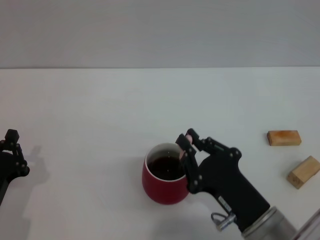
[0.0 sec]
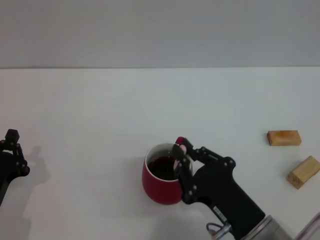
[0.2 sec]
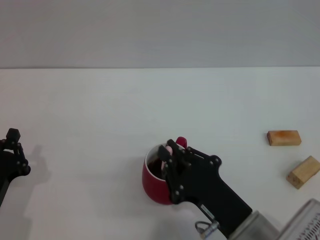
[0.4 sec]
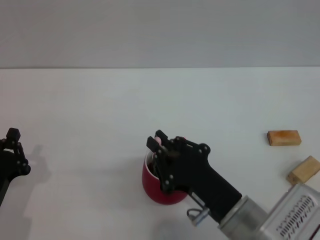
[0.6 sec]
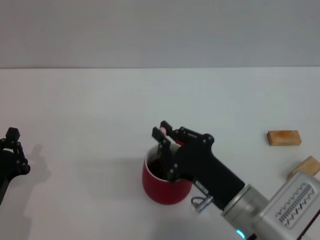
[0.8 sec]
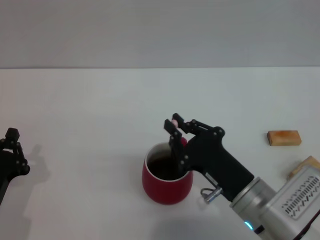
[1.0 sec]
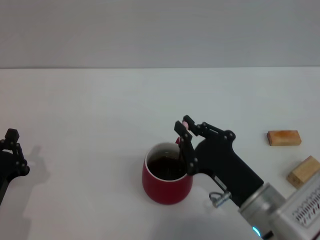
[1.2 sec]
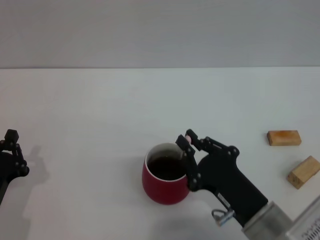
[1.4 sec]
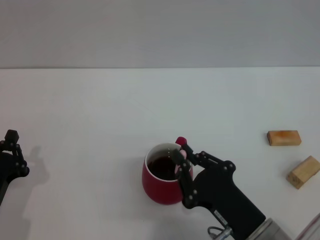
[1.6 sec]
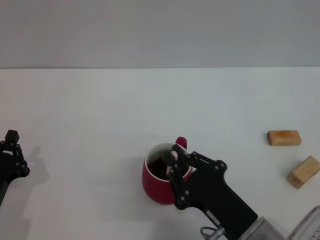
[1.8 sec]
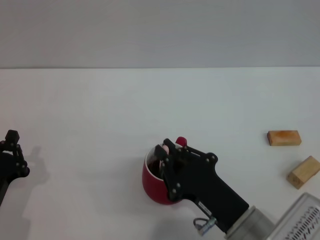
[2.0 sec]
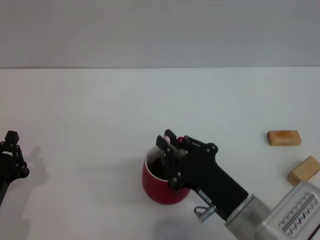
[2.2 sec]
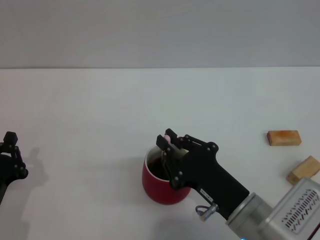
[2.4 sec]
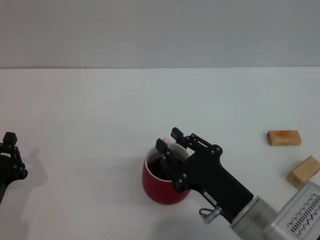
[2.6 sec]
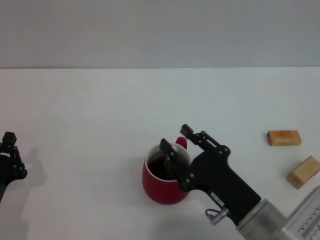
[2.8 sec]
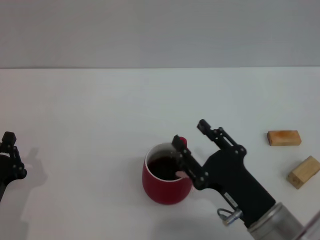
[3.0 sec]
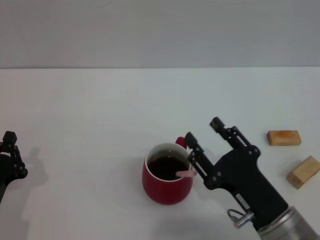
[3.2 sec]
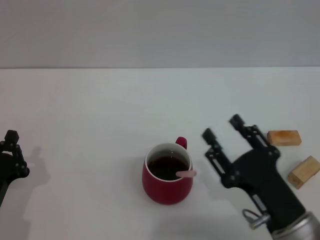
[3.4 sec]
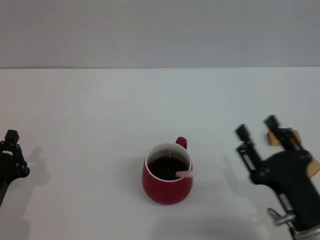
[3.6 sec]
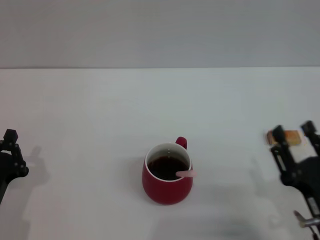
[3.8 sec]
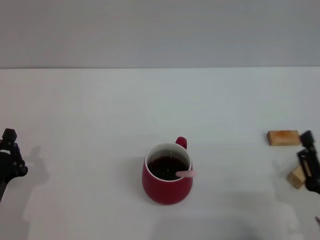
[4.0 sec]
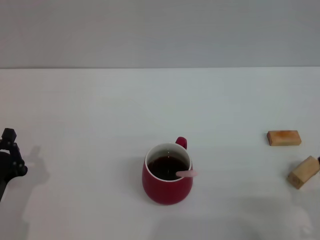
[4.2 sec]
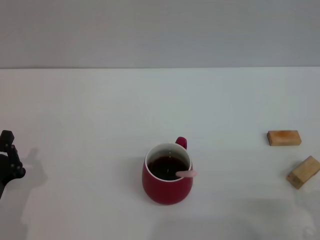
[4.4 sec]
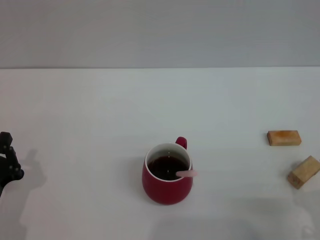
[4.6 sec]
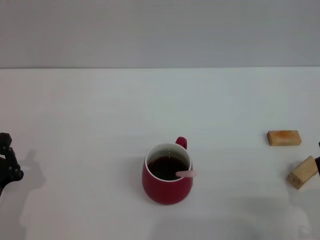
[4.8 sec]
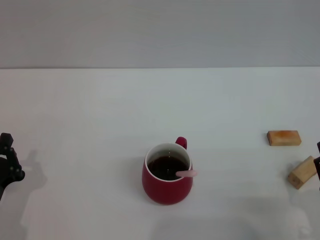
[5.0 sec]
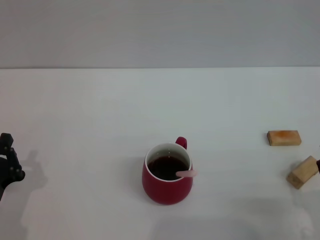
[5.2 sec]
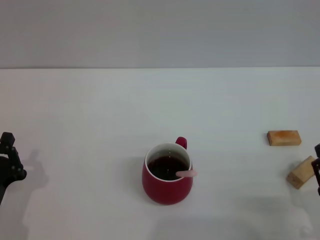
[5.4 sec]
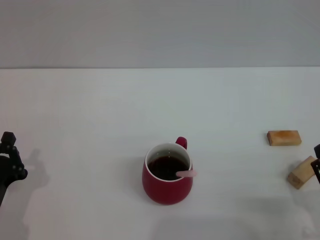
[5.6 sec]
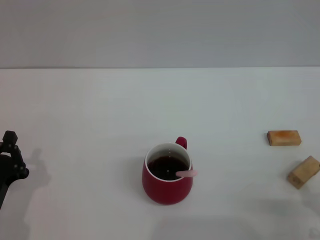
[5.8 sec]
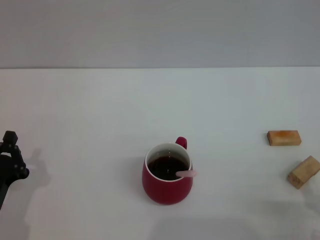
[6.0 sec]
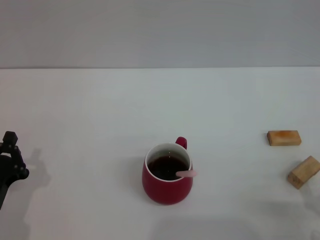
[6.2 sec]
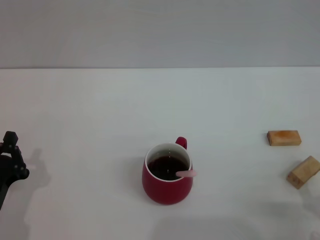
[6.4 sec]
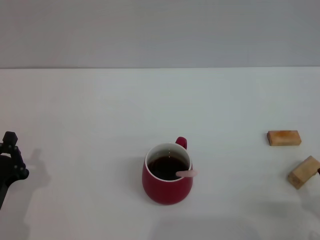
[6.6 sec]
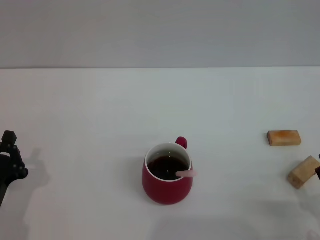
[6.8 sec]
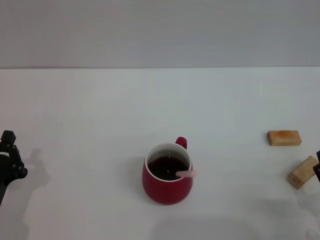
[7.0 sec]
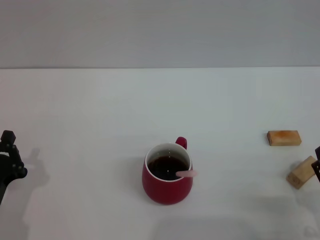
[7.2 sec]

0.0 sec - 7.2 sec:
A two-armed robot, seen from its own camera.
Task of the whole recording: Move the red cup to the center, lift the pink spoon, stir it three times in the cup, and put the spoon into the cup.
Step, 0.0 sec - 3.6 sec: Stir the coffee in the cup with the right gripper.
0.0 sec - 2.8 sec: The grippers stay close to where they were, moving slightly.
2.8 sec - 4.4 sec: The right gripper shifts some 15 cm to the right and backward.
5.8 sec - 7.2 sec: Neither gripper changes place.

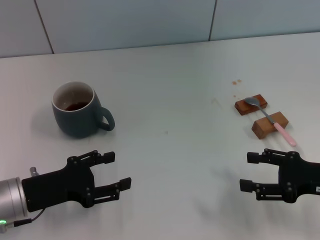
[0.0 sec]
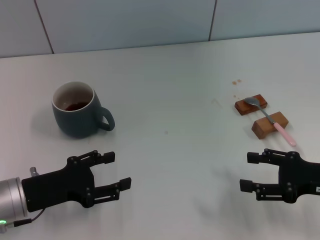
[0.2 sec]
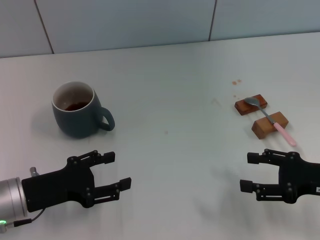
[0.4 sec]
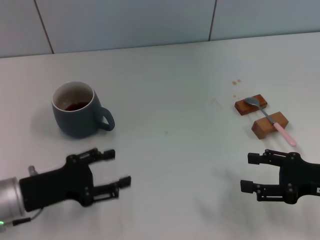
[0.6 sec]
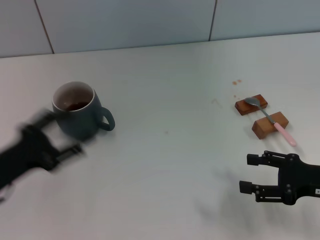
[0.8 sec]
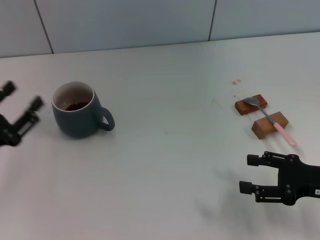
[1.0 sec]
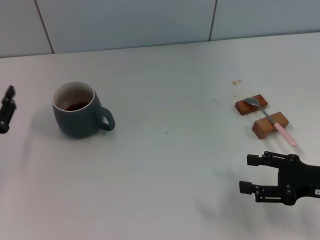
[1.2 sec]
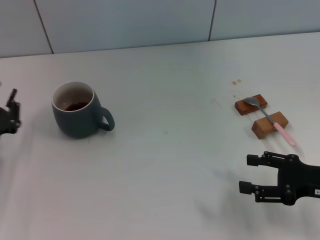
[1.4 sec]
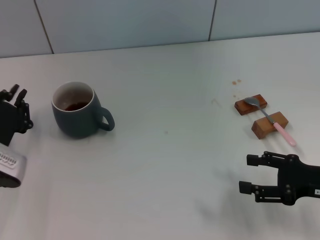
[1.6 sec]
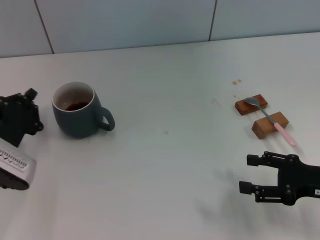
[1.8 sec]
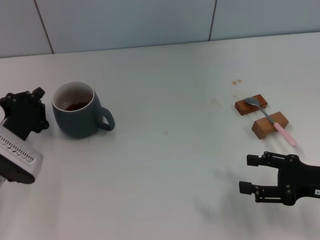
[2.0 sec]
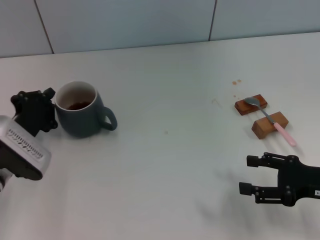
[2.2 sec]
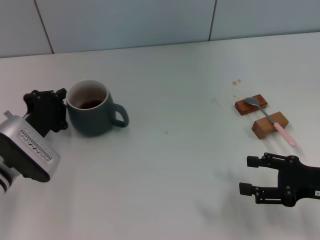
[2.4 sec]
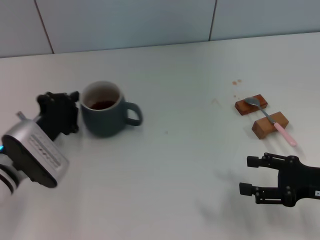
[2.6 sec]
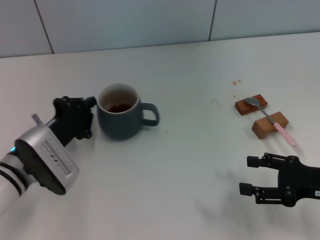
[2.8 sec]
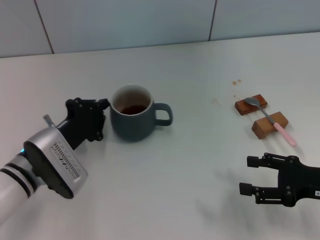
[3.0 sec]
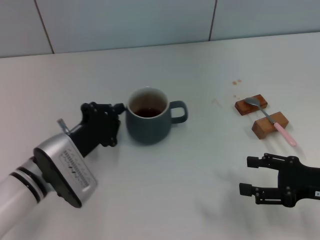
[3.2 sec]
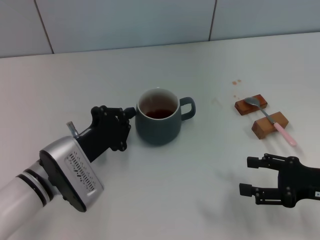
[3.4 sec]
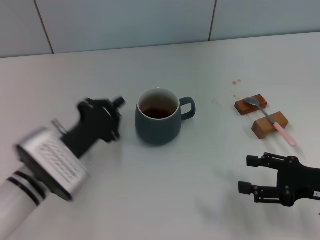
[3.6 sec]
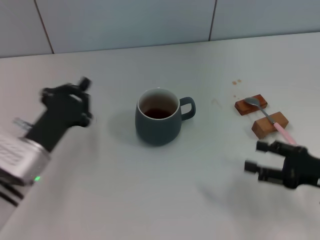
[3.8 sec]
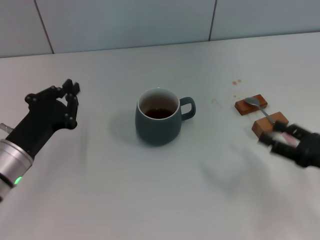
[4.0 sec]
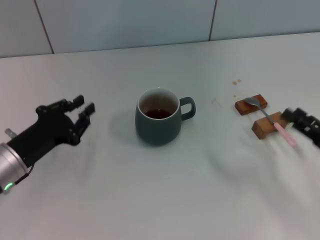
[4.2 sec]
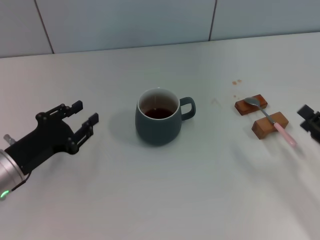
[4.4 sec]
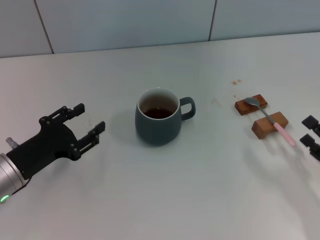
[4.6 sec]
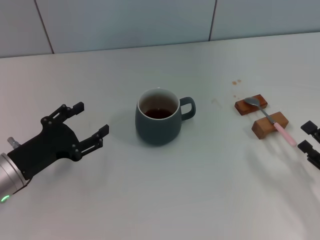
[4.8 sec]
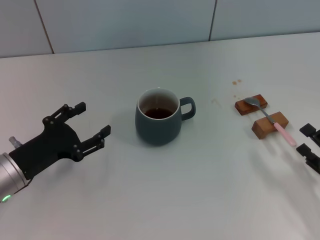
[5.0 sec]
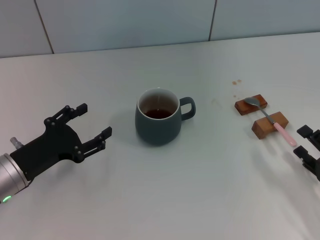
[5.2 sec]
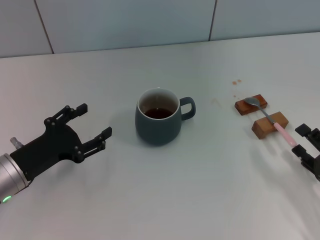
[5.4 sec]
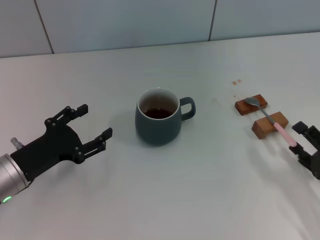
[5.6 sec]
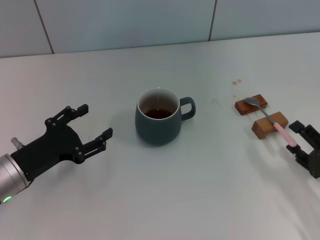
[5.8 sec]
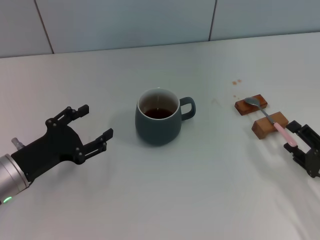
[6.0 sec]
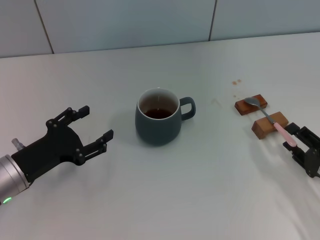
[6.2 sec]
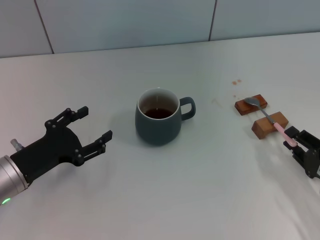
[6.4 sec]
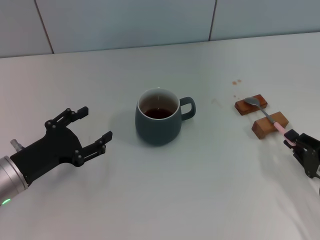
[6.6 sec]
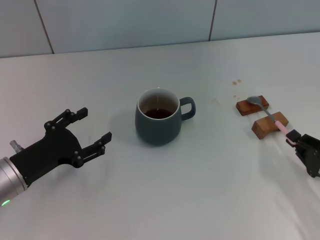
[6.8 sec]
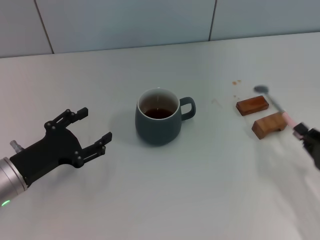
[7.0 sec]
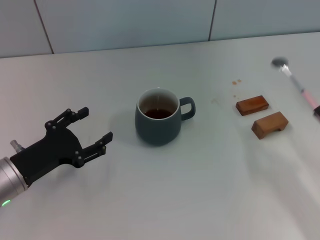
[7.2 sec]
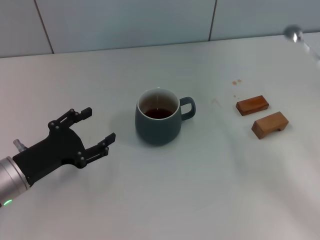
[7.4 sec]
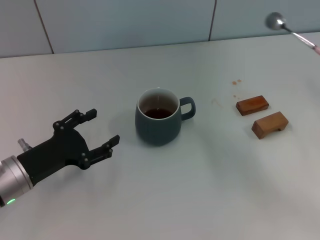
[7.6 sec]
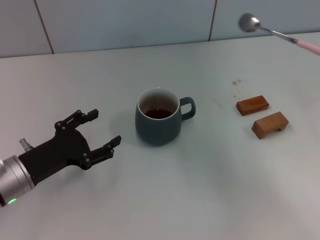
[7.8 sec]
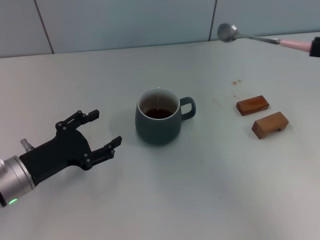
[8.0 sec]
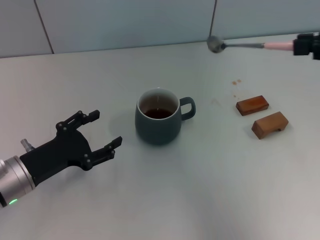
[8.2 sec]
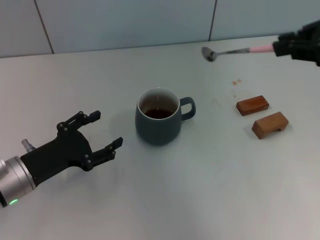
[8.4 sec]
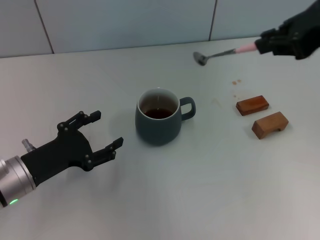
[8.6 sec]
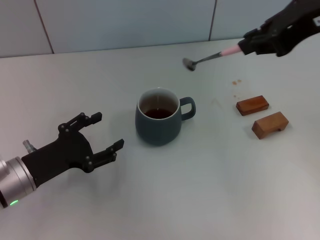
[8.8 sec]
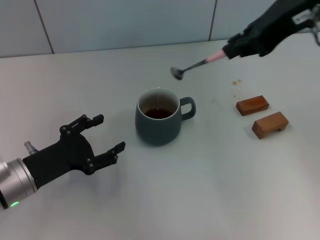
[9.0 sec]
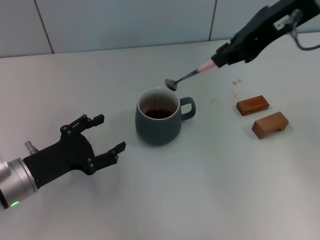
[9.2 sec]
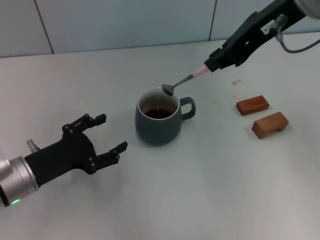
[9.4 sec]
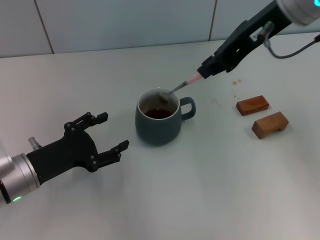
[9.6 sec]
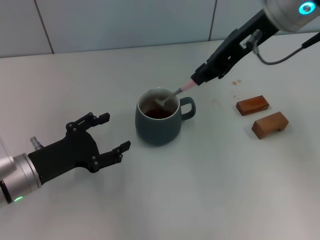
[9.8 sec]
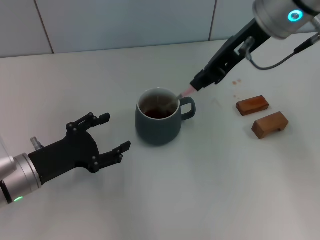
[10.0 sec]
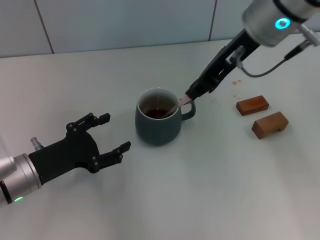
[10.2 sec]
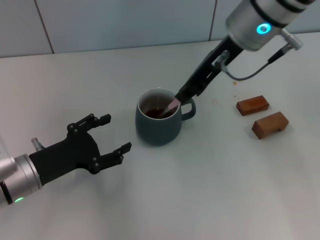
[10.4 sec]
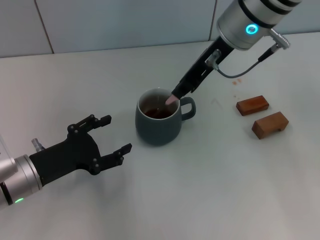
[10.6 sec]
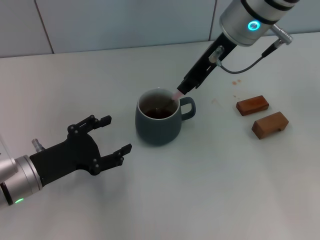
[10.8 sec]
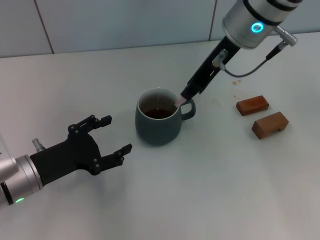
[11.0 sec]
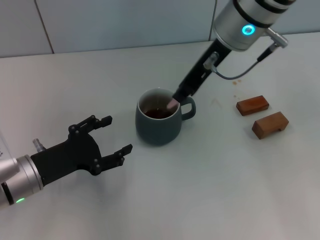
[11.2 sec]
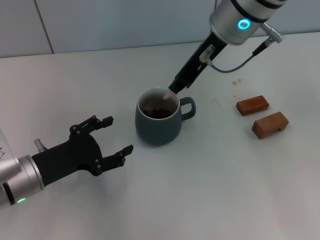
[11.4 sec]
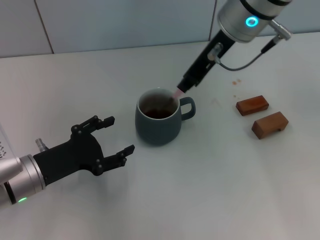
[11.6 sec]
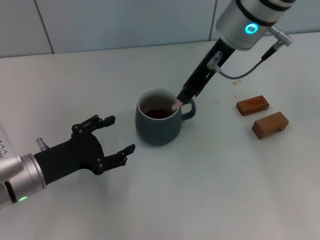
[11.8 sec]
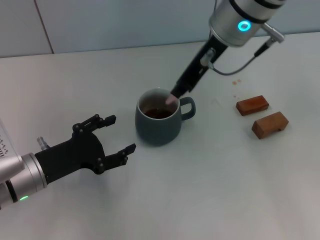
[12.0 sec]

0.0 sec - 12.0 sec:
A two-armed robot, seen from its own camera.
Task of the whole recording: Move the grey cup to the center, lift the pink spoon, stir it three times in the cup, and put the spoon into the cup.
Step, 0.0 sec - 3.4 sec: Move the cup with coffee to the center of view with the left gripper.
Step, 3.8 sec - 7.0 sec: Pick up the spoon with the right gripper.
0.0 sec - 1.6 sec: The left gripper closes up.
1.6 sec - 3.0 sec: The left gripper is displaced to the right by roughly 5 cm.
3.0 sec - 4.4 sec: The left gripper travels to the left by about 5 cm; the right gripper shifts by about 5 cm.
4.4 sec - 6.0 sec: The left gripper opens up.
6.0 sec - 7.6 sec: The right gripper heads upward and to the right, covering some 15 cm, and closes its fingers.
7.6 sec - 9.0 sec: The right gripper goes approximately 30 cm to the left, upward and forward.
9.0 sec - 10.4 sec: The right gripper goes roughly 10 cm downward, forward and to the left.
10.4 sec - 12.0 sec: The grippers move only a little.

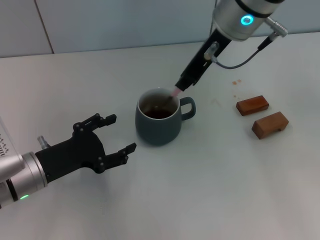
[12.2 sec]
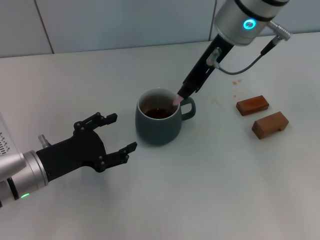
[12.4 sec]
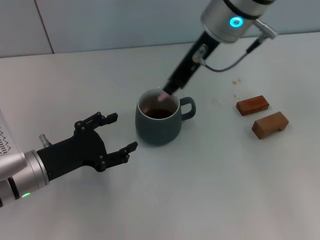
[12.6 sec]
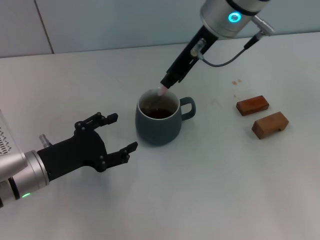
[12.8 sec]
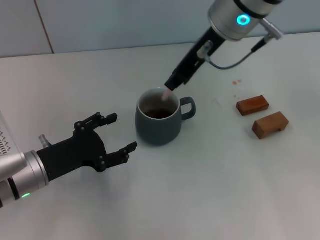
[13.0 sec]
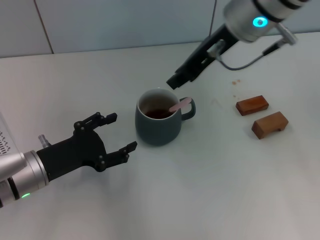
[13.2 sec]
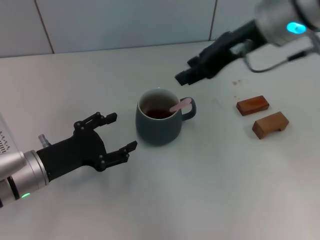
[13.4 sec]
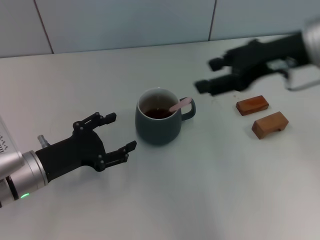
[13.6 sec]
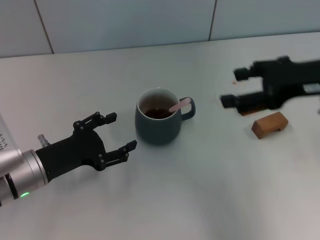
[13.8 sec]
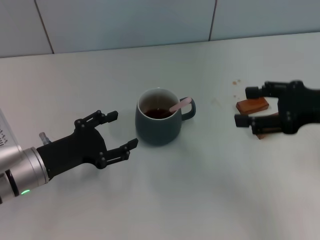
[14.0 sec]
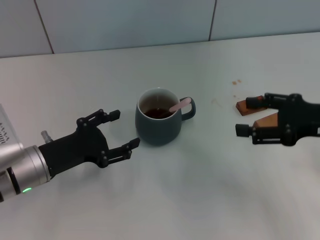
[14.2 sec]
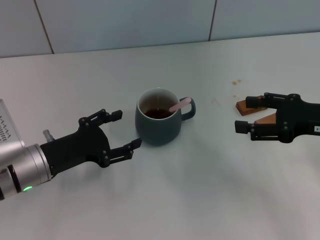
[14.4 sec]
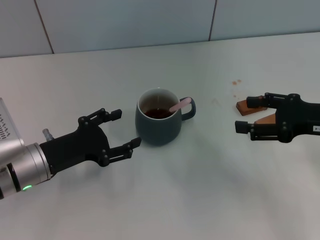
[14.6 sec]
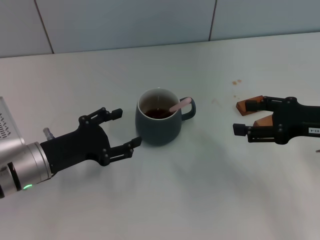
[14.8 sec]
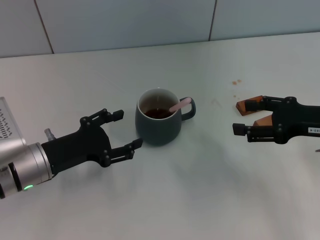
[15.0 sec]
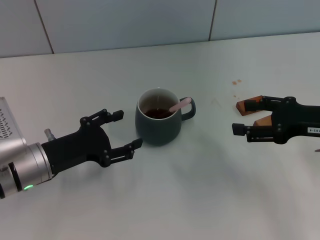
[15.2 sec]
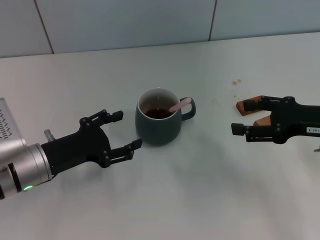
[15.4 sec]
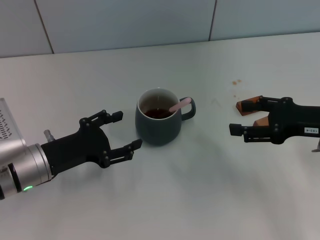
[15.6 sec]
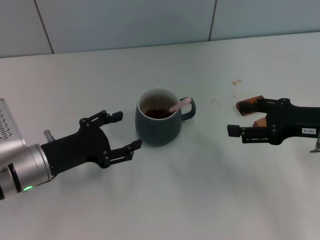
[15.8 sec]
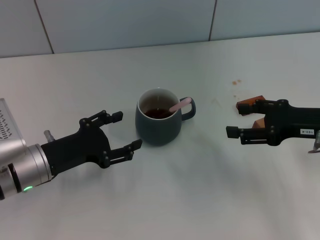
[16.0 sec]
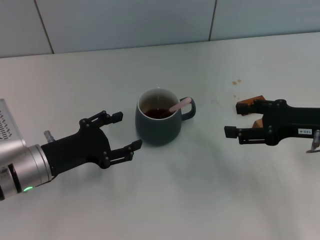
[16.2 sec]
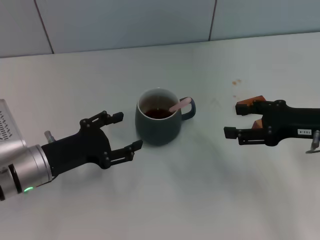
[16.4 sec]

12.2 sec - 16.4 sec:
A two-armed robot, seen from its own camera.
Task of the whole recording: Move the grey cup to the center, lift the pink spoon, stir it three times in the cup, and put the spoon into the cup.
12.2 sec - 13.6 sec: The right gripper travels to the right and backward by roughly 15 cm, and opens up.
13.6 sec - 15.0 sec: The right gripper is displaced downward and to the right by some 15 cm, and opens.
15.0 sec - 16.4 sec: Both grippers stay put.
